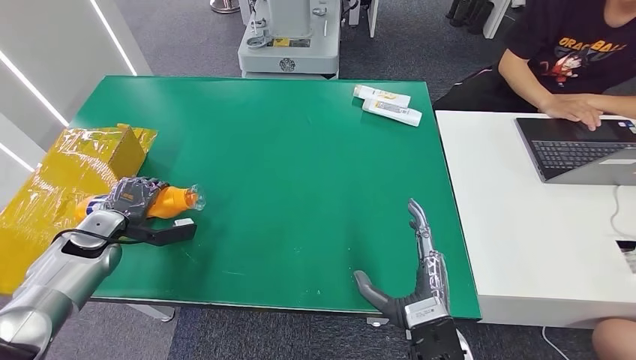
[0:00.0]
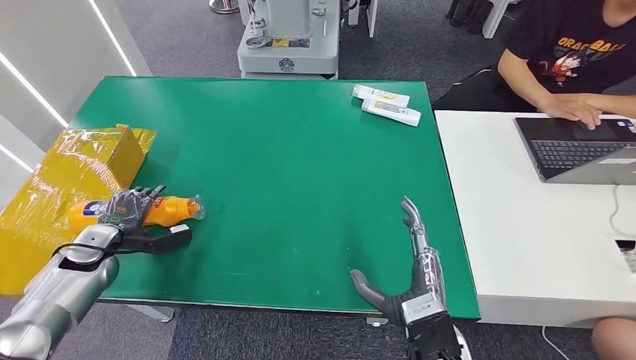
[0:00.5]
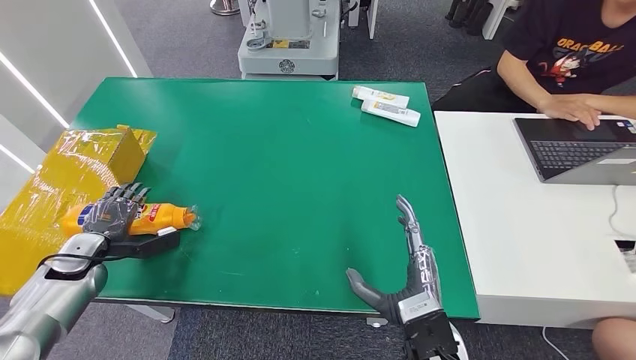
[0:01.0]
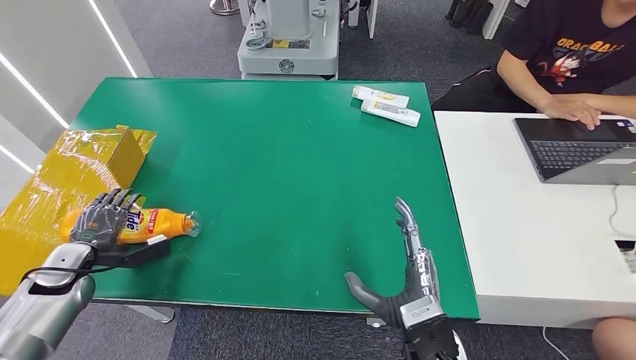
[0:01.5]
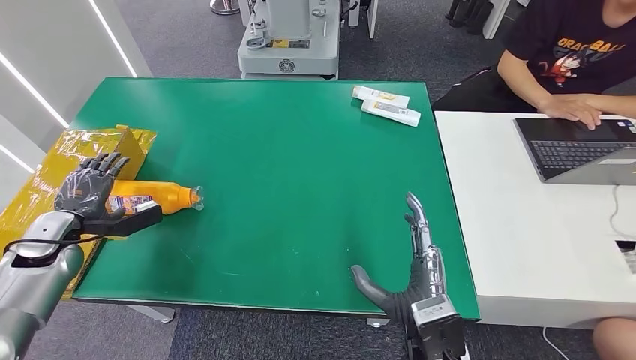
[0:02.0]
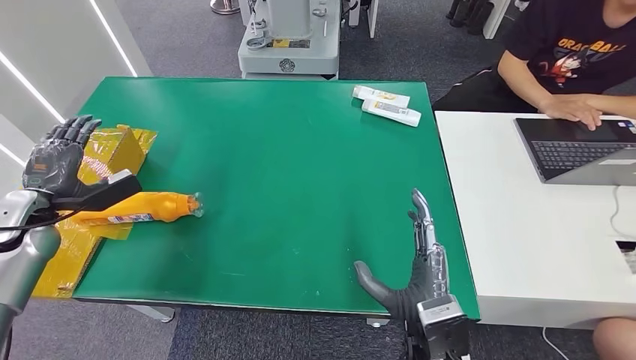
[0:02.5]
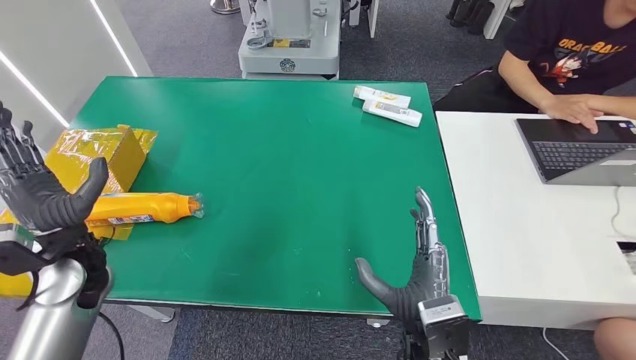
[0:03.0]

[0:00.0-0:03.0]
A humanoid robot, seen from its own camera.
Step, 0:00.0 to 0:03.0: Turn the bottle to the front side.
0:00.0 to 0:01.5: The left hand travels backward by roughly 5 cm.
0:01.5 to 0:03.0: The left hand shifts about 15 cm upward and to the right.
